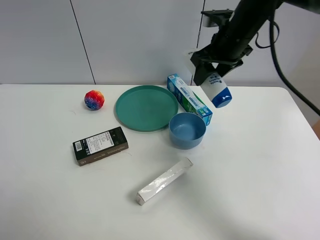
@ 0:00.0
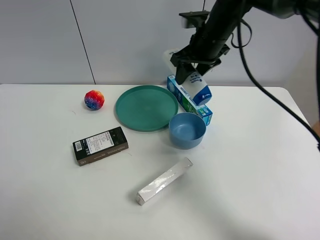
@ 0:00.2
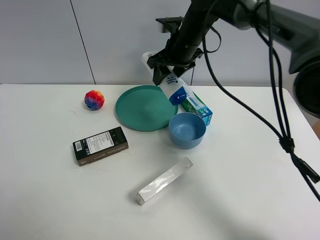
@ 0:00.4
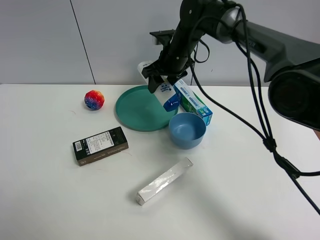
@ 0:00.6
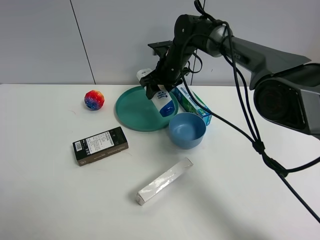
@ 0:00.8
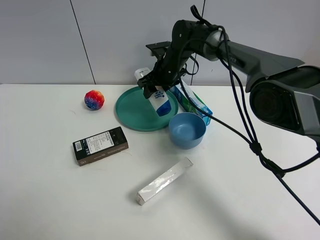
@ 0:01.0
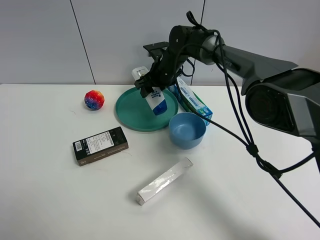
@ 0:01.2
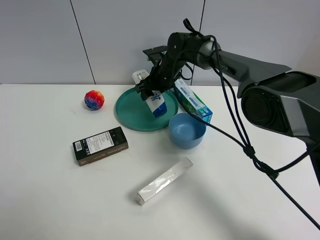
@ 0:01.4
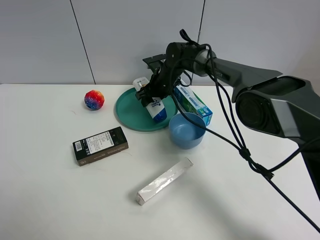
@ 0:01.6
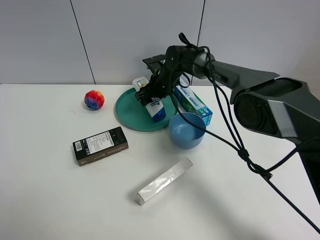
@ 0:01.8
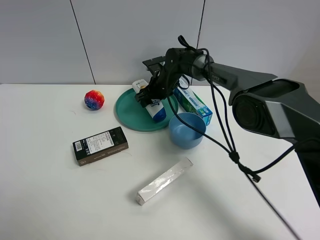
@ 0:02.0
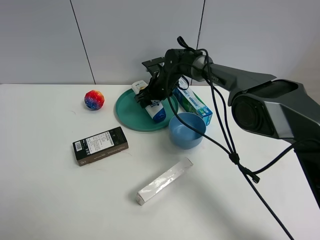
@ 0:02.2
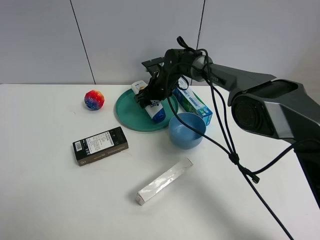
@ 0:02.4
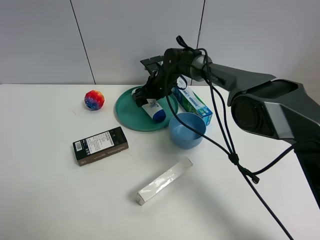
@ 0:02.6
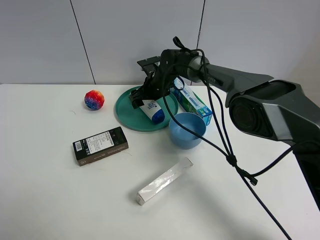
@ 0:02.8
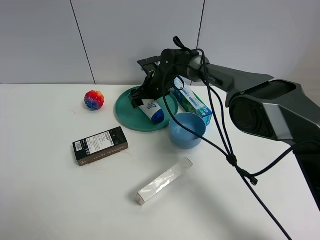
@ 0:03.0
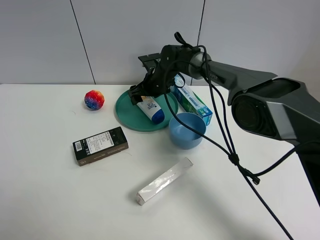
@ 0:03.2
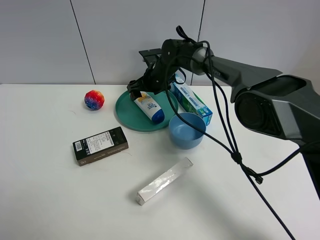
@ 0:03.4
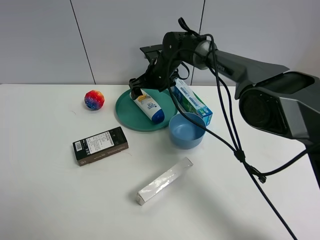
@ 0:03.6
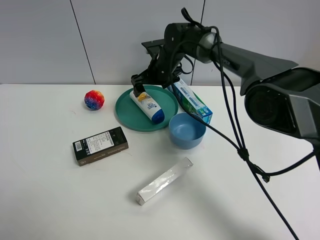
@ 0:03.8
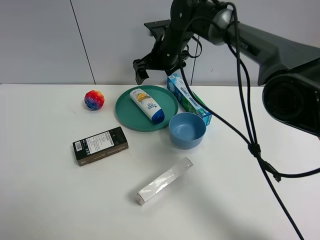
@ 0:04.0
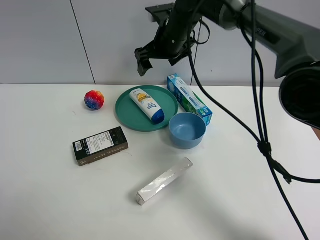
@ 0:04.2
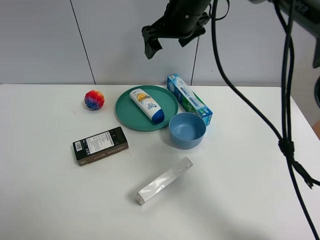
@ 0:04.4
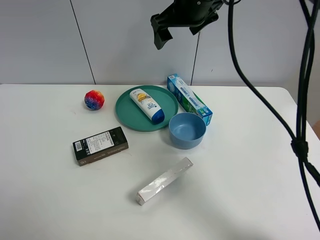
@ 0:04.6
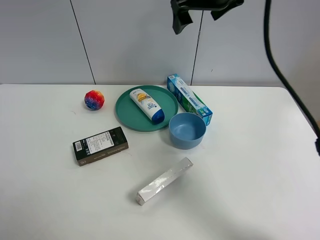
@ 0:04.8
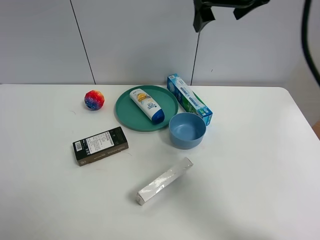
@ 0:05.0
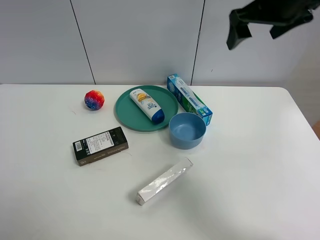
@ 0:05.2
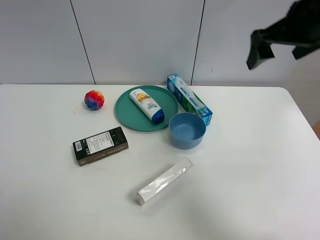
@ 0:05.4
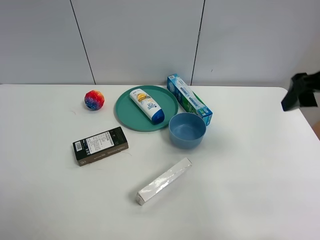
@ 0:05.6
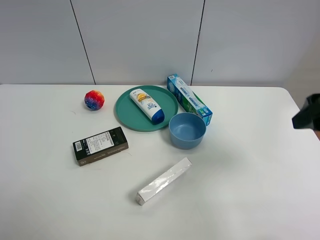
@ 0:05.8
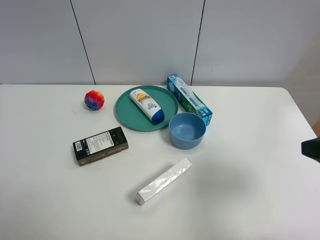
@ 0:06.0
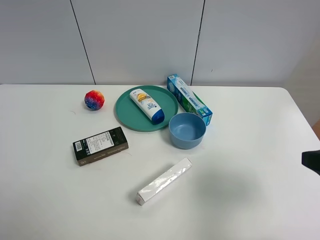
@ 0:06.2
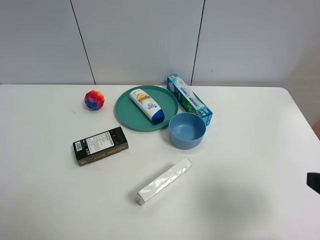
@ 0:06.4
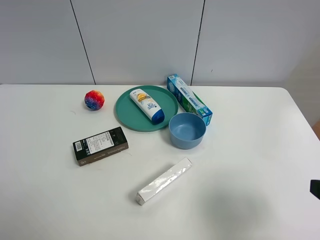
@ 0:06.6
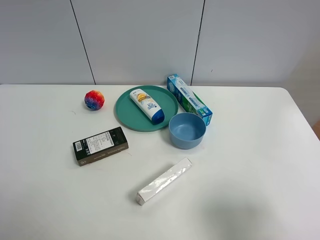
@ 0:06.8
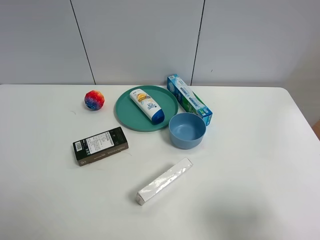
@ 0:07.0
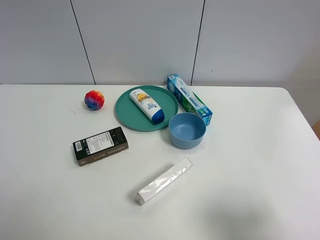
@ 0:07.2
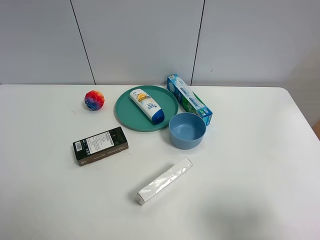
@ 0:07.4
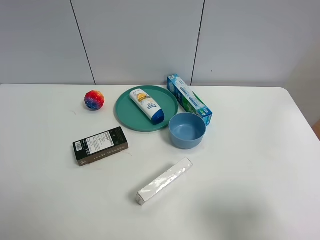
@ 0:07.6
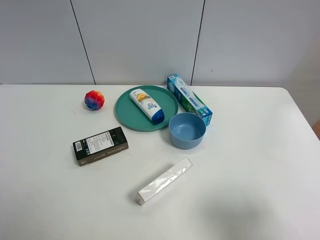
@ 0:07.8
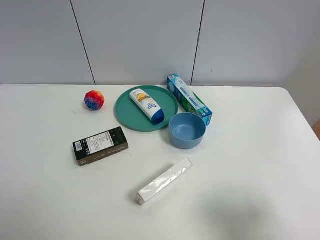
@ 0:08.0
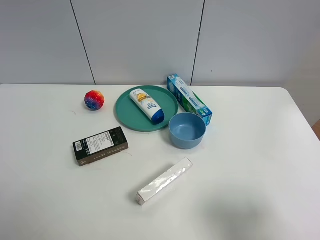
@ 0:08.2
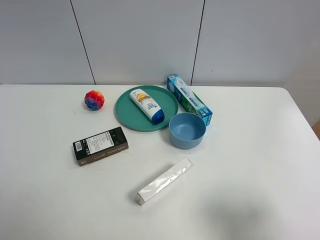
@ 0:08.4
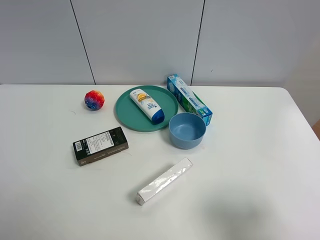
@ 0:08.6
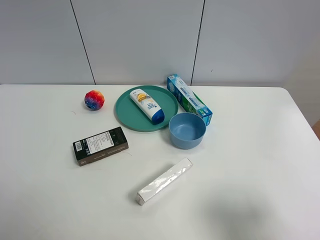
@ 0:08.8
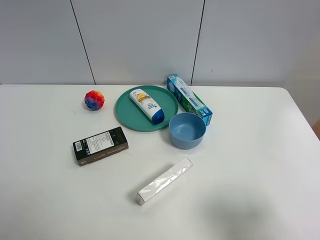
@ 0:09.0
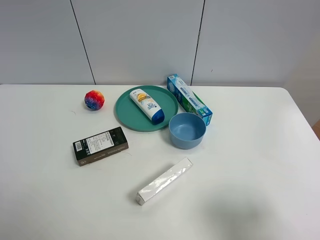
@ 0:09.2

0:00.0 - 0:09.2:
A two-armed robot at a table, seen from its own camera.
Task of the whole recording: the gripper move the object.
Step, 0:00.0 - 0:03.4: Place the shampoo into the green plate with the right gripper.
0:00.0 - 0:01.6: The right gripper travels downward, to the left and forward by approximately 25 cm.
0:01.6 - 0:03.0: The right gripper opens.
0:03.0 - 0:04.6: The right gripper moves upward, some 25 cm, and opens.
0:04.6 - 0:06.2: The right gripper shifts some 40 cm backward and to the right.
0:06.2 - 0:07.6: The right gripper travels backward by roughly 5 cm.
0:07.6 - 0:09.2: Both grippers stay put.

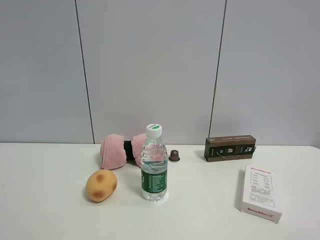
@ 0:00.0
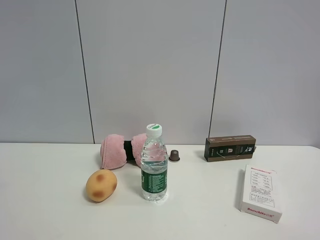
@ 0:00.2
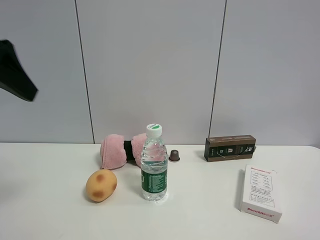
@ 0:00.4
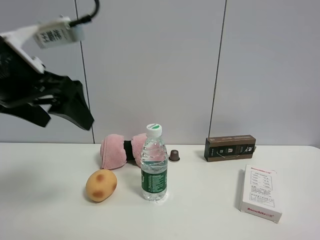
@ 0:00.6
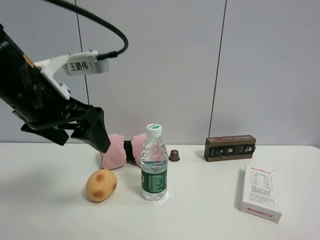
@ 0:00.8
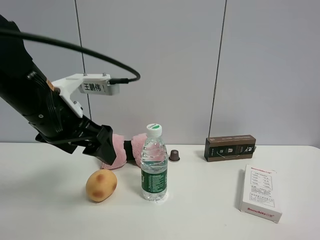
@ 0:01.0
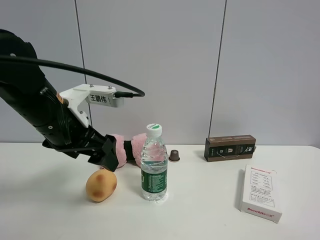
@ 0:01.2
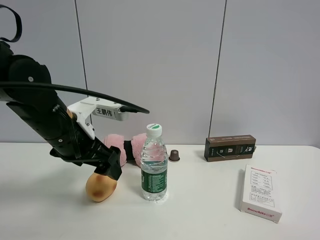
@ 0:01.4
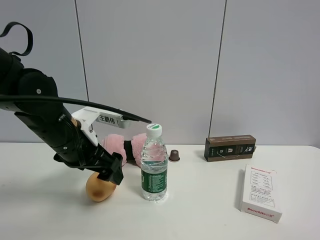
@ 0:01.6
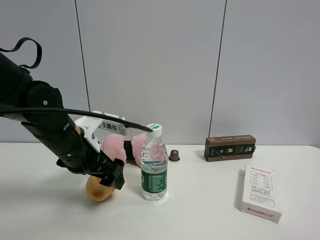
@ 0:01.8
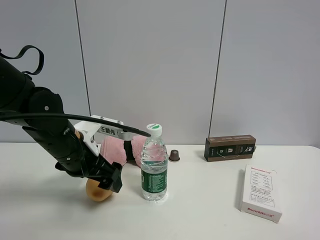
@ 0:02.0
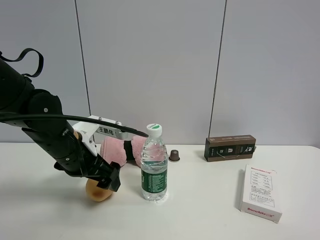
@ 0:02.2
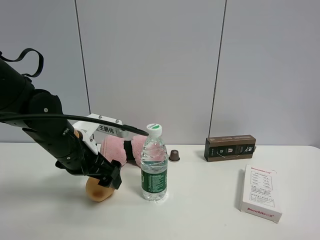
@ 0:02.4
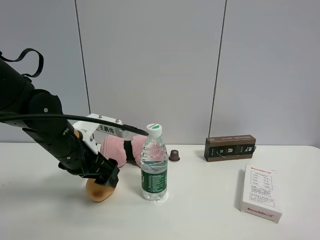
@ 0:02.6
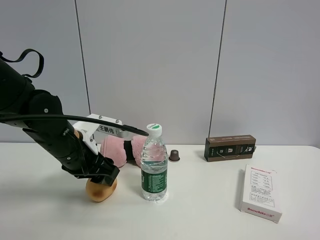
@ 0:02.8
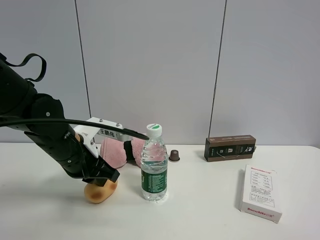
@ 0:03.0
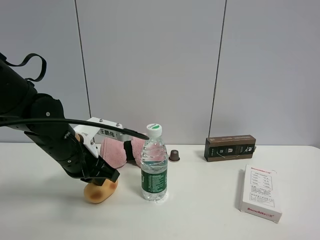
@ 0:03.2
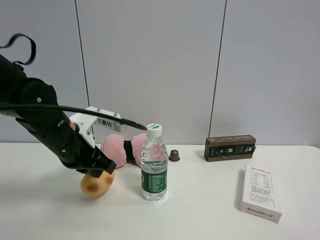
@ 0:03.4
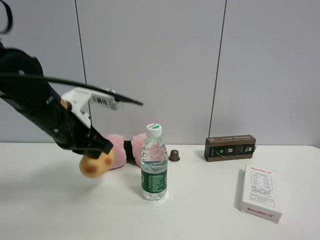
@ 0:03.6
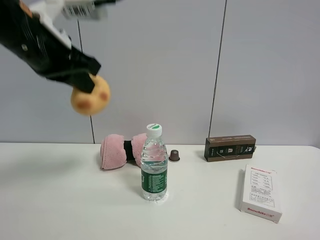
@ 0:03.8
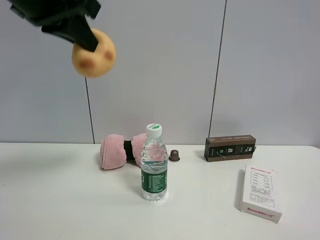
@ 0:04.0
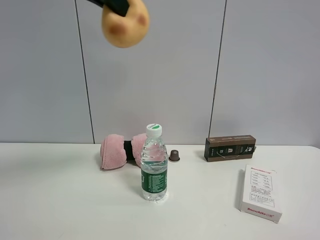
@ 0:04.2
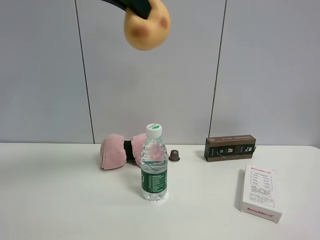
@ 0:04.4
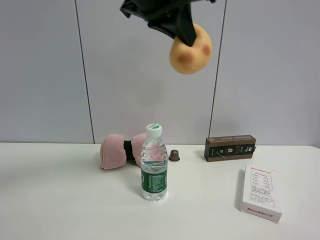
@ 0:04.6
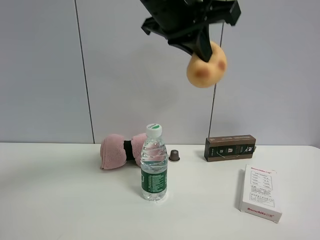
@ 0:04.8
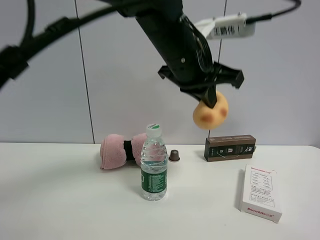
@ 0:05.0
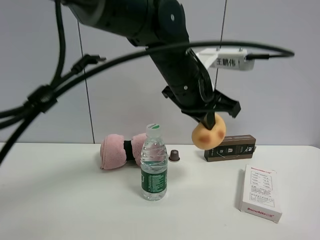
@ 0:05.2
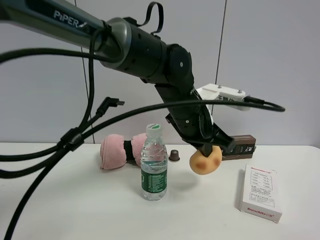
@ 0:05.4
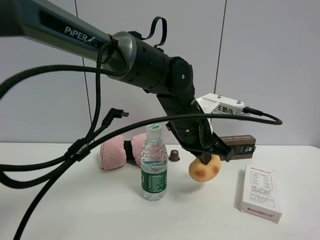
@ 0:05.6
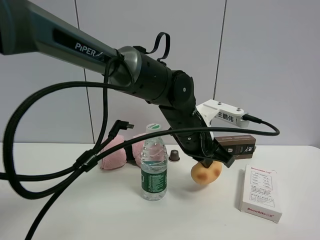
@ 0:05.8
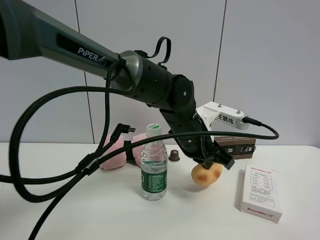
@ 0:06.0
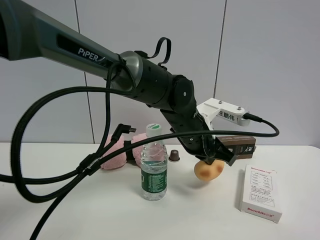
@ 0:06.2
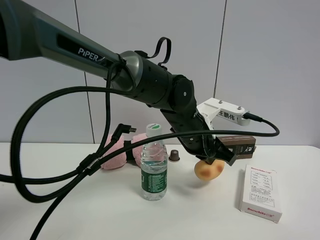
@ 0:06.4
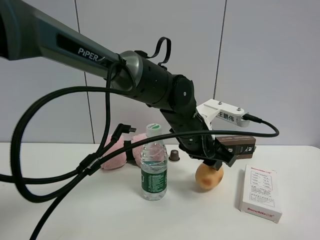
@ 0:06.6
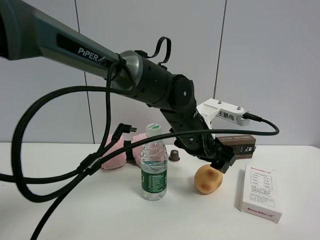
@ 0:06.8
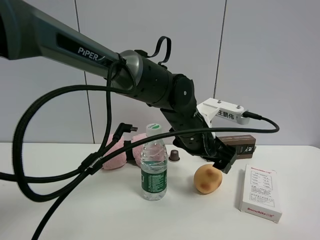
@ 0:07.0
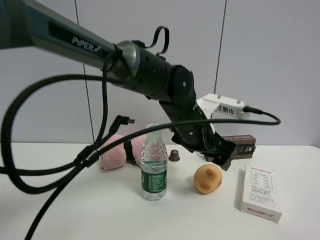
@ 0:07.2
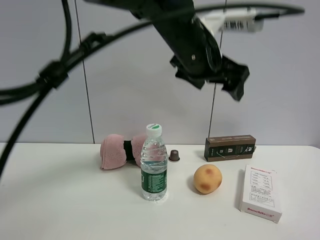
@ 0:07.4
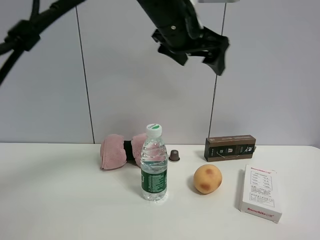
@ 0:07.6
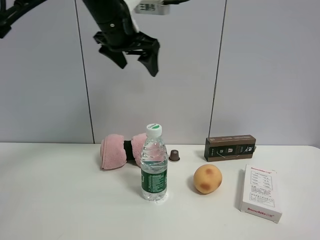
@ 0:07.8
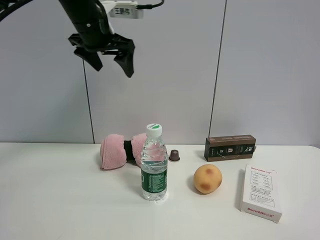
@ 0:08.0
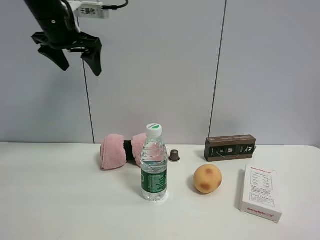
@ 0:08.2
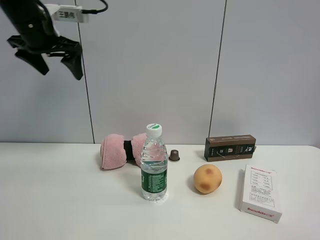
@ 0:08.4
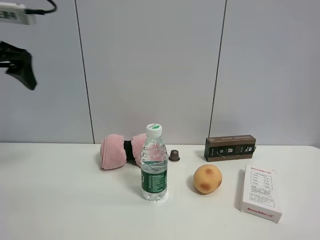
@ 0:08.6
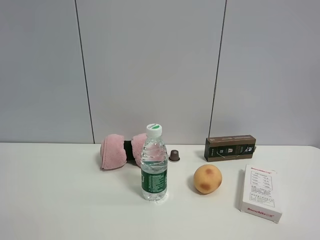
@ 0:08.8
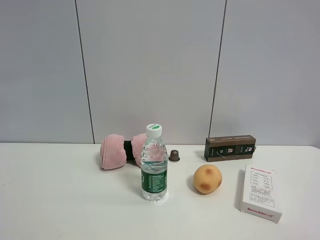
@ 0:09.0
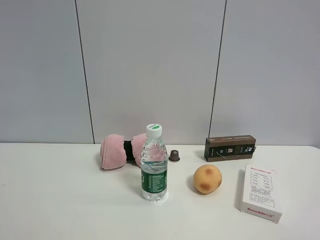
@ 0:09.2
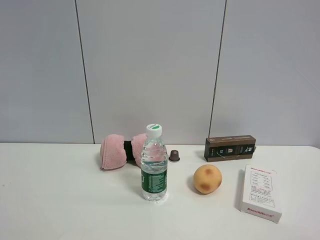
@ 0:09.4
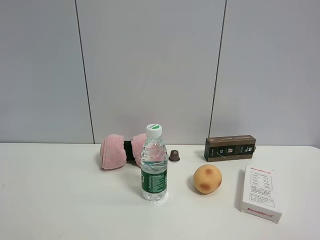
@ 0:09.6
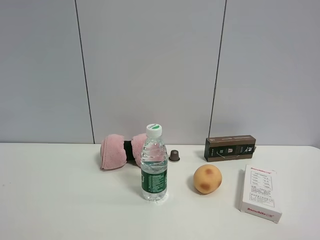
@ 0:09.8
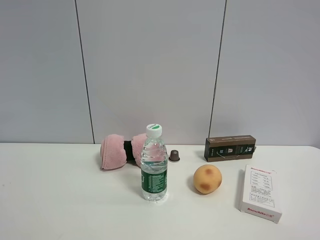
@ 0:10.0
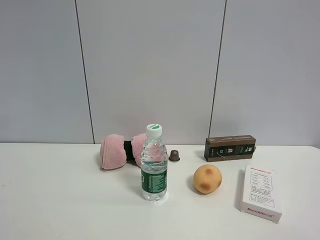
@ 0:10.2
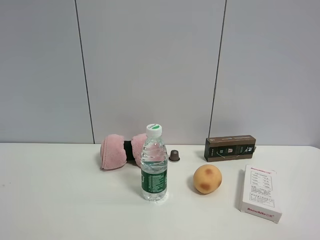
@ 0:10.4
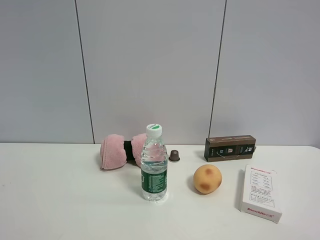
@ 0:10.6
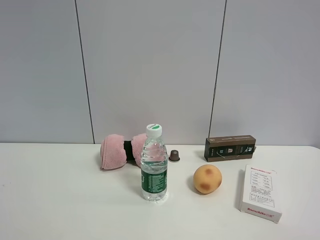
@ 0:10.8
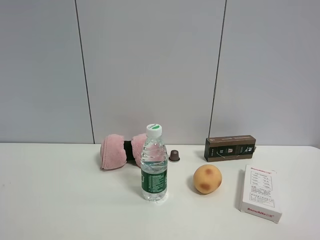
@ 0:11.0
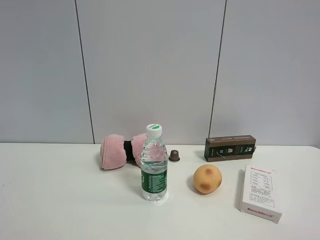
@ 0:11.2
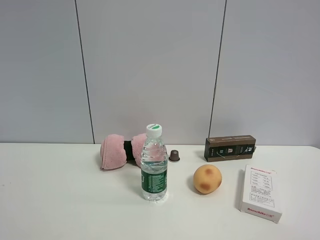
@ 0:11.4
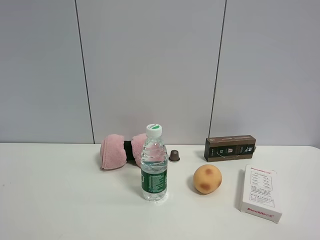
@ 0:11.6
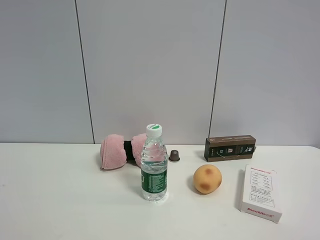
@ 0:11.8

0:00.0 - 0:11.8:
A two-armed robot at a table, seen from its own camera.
Task of the whole recording: the gripper move the object.
Step, 0:00.0 - 0:03.0: Grasp the egg yolk pastry with the left gripper.
Step, 0:03.2 - 0:07.2: Place the egg yolk pastry on the table with the left gripper.
0:00.0 - 0:01.4: The left gripper heads forward, downward and to the right, covering roughly 30 cm.
0:01.4 - 0:03.0: The left gripper shifts by roughly 5 cm, and closes up.
0:03.0 - 0:04.4: The left gripper moves upward, roughly 30 cm.
0:04.4 - 0:06.0: The left gripper travels downward and to the right by approximately 30 cm.
0:06.0 - 0:07.4: The left gripper moves upward, approximately 15 cm, and opens.
0:07.4 - 0:08.8: The left gripper travels to the left by roughly 40 cm.
0:10.4 - 0:11.8: Both grippers stay about where they are.
